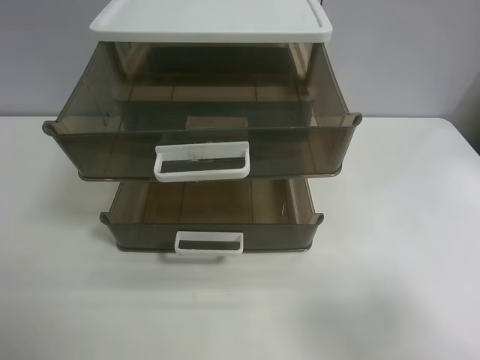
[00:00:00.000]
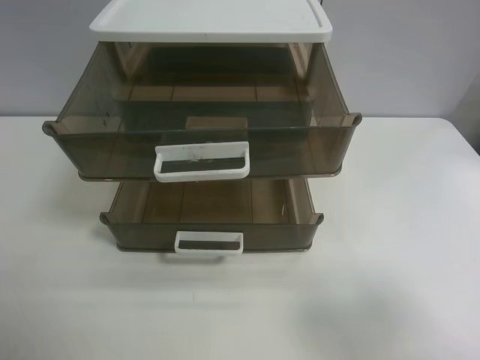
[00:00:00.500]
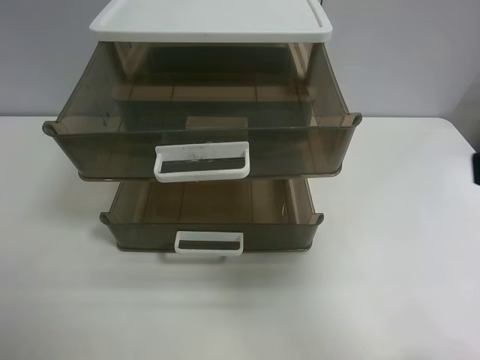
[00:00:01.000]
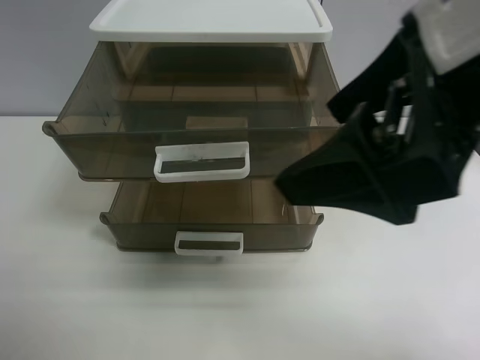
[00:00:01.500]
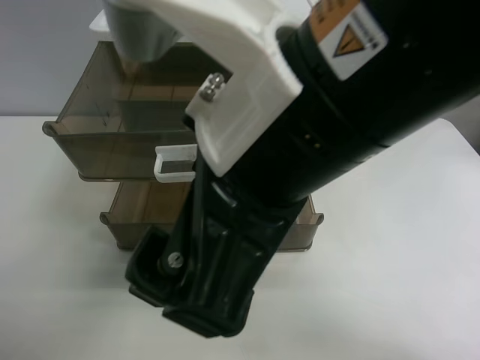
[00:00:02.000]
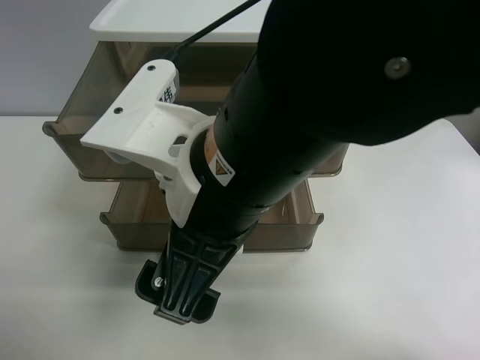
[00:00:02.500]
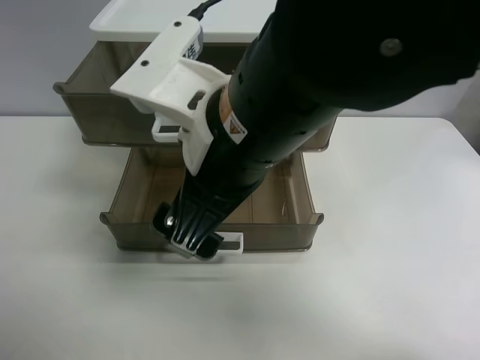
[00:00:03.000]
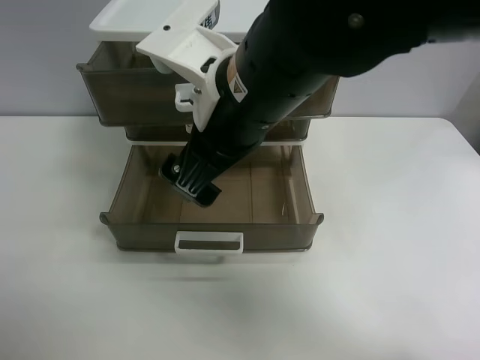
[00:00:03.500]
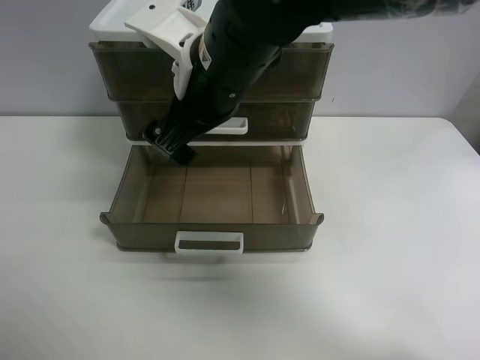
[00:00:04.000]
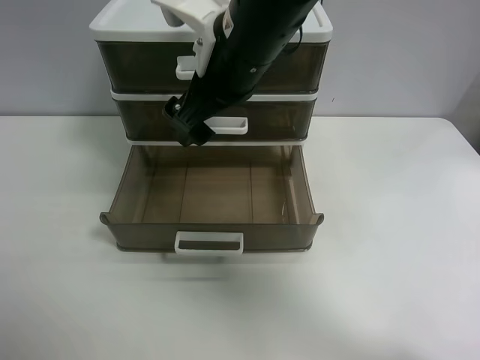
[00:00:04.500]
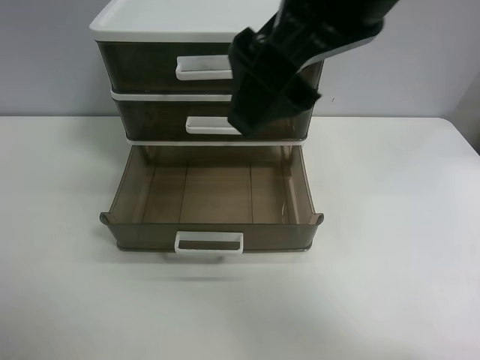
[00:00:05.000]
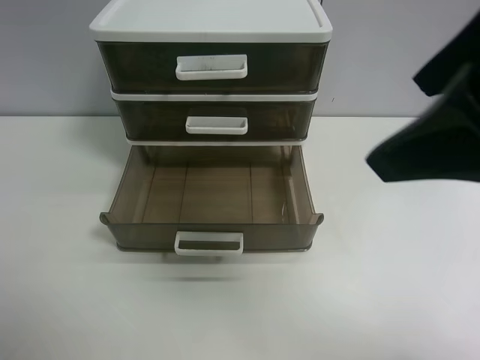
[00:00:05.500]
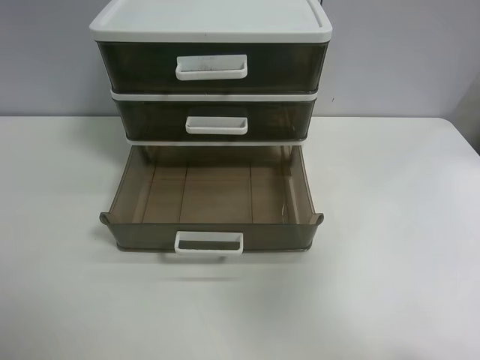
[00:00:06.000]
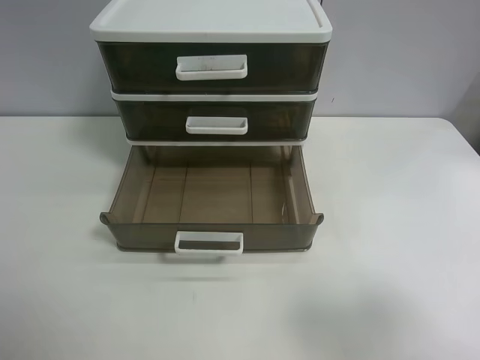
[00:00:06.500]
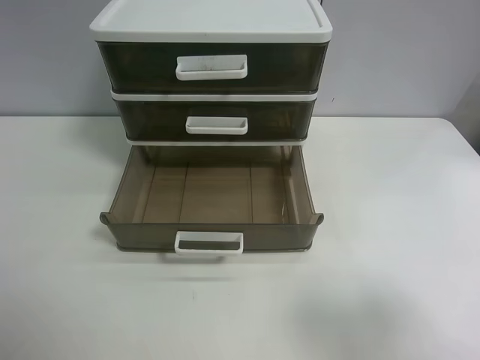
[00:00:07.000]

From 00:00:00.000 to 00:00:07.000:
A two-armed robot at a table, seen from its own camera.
Task of the whole recording: close the top drawer.
Step, from 00:00:00.000 to 00:00:02.500: Use the right gripper to touch the topmost layer of the storage cabinet.
Step, from 00:00:03.000 to 00:00:04.500: Push the top drawer closed.
From 00:00:00.000 to 00:00:02.000: The right gripper is displaced to the left and forward by some 30 cm.
From 00:00:02.000 to 00:00:03.500: The right gripper travels forward by approximately 10 cm.
From 00:00:03.500 to 00:00:05.000: The right gripper moves upward and to the right, approximately 15 cm.
From 00:00:05.000 to 00:00:07.000: The right gripper heads to the right, backward and downward, covering some 30 cm.
